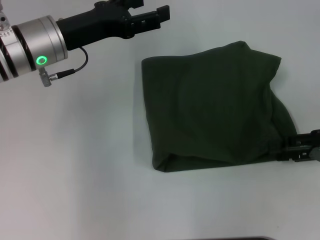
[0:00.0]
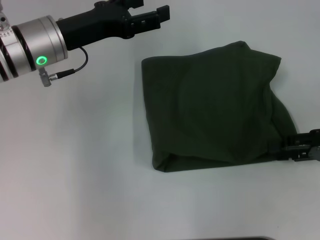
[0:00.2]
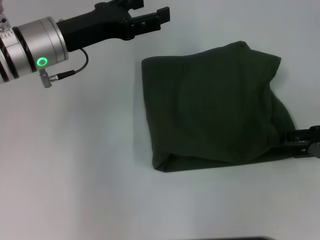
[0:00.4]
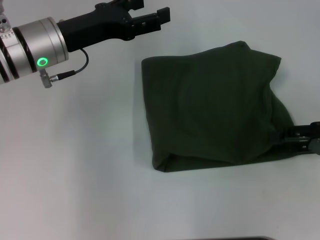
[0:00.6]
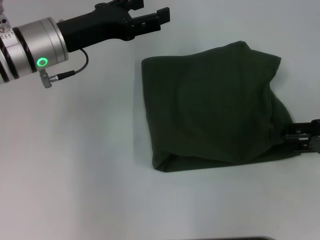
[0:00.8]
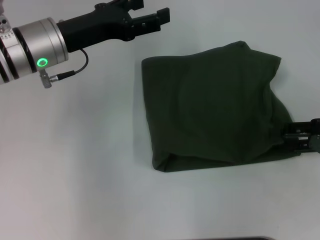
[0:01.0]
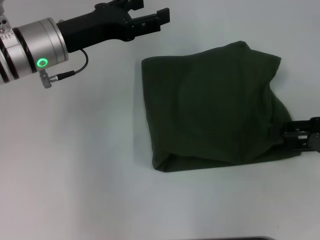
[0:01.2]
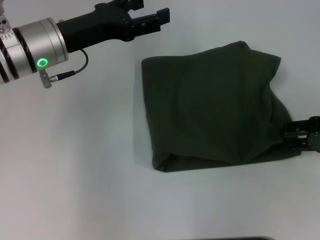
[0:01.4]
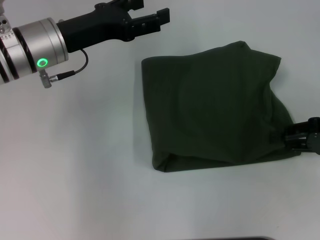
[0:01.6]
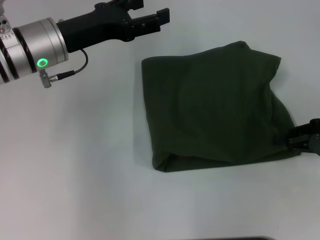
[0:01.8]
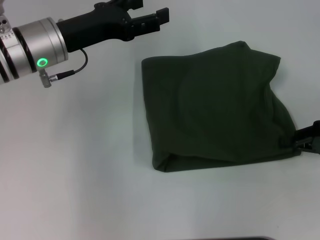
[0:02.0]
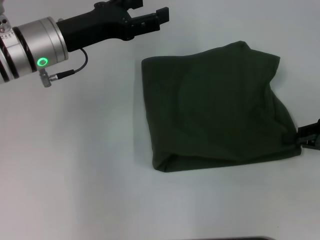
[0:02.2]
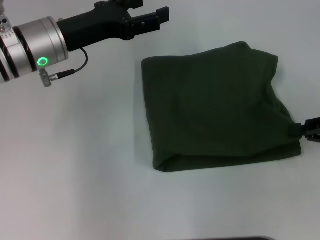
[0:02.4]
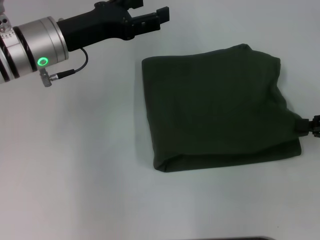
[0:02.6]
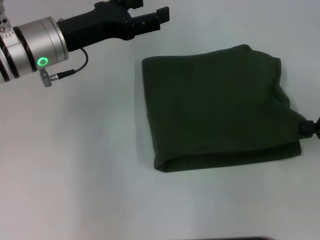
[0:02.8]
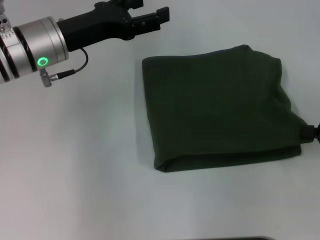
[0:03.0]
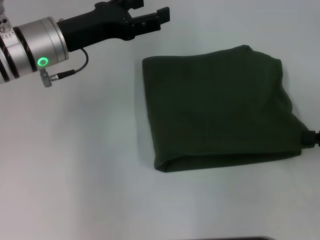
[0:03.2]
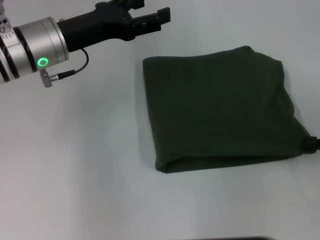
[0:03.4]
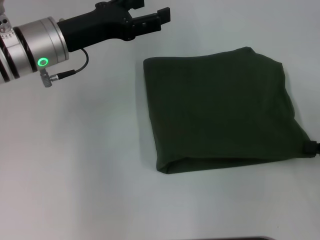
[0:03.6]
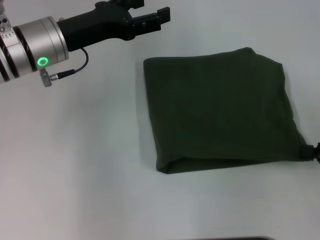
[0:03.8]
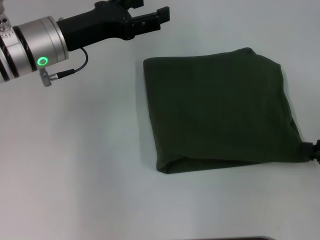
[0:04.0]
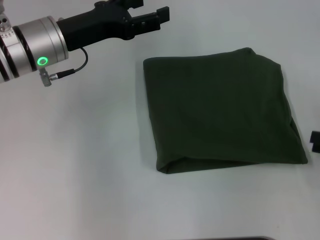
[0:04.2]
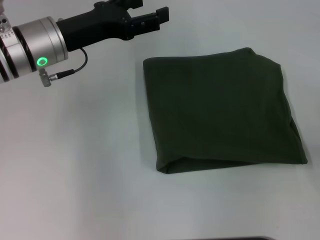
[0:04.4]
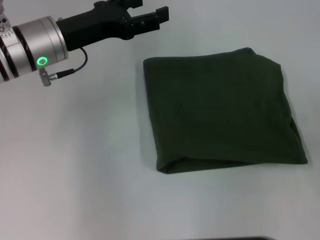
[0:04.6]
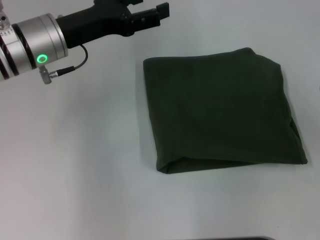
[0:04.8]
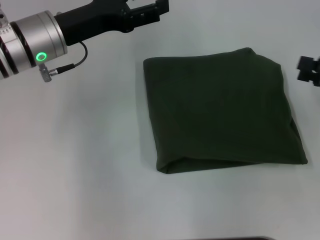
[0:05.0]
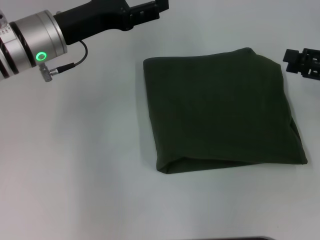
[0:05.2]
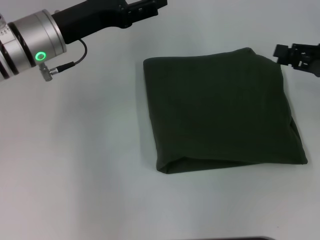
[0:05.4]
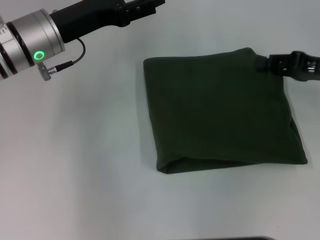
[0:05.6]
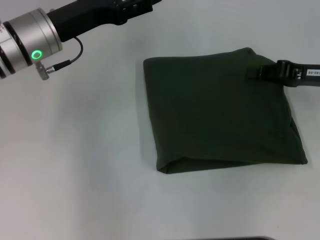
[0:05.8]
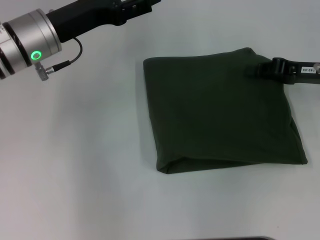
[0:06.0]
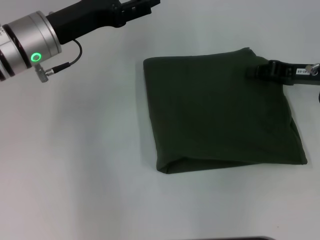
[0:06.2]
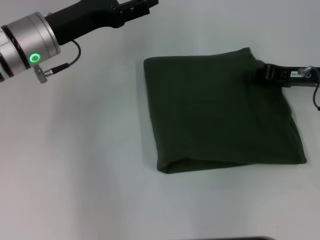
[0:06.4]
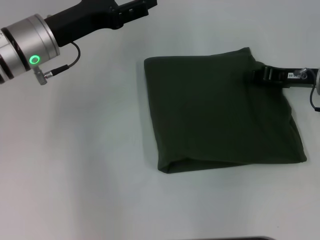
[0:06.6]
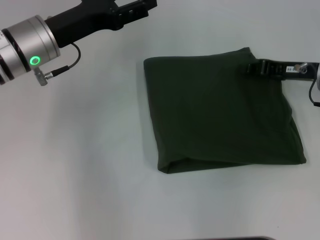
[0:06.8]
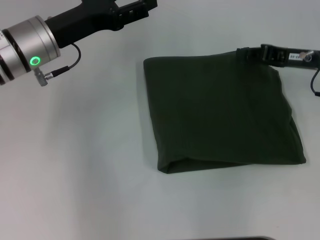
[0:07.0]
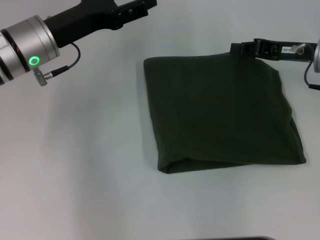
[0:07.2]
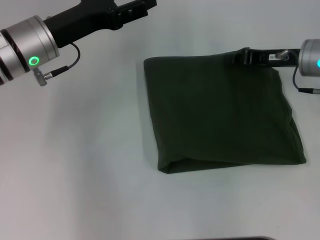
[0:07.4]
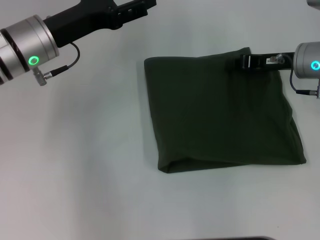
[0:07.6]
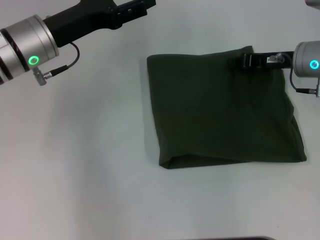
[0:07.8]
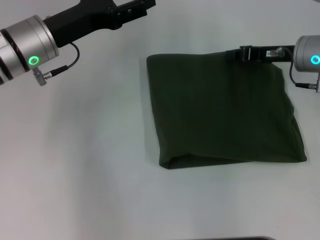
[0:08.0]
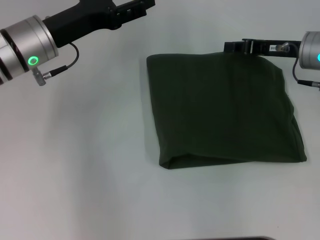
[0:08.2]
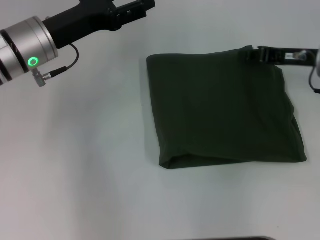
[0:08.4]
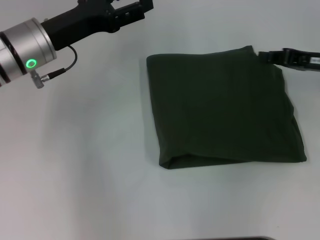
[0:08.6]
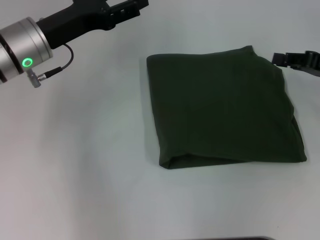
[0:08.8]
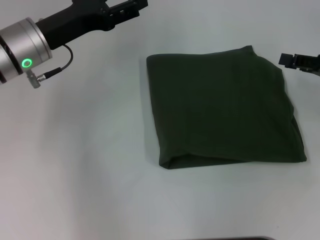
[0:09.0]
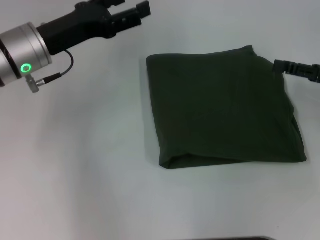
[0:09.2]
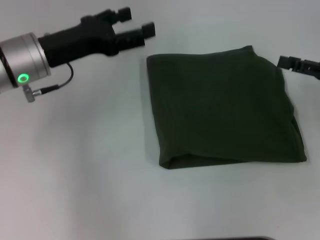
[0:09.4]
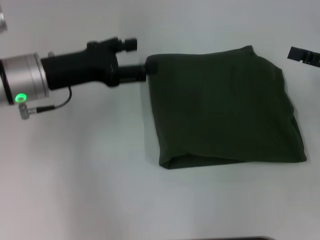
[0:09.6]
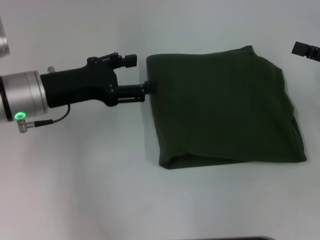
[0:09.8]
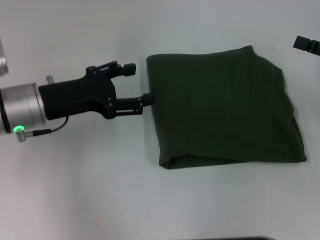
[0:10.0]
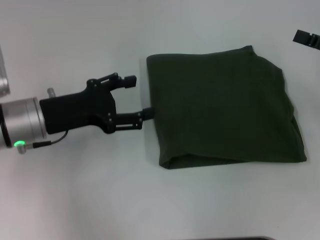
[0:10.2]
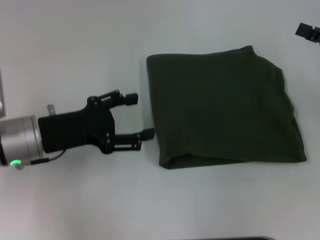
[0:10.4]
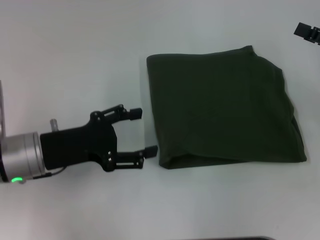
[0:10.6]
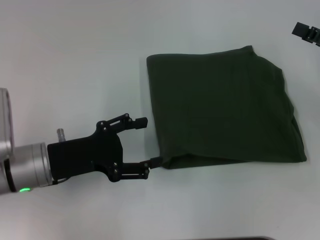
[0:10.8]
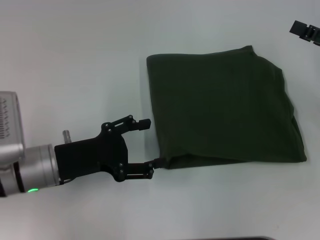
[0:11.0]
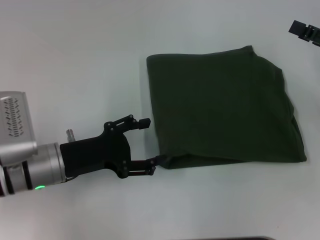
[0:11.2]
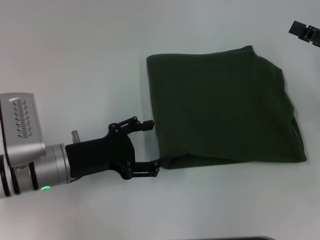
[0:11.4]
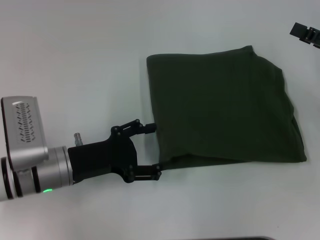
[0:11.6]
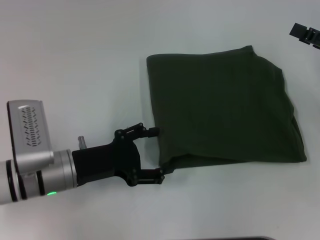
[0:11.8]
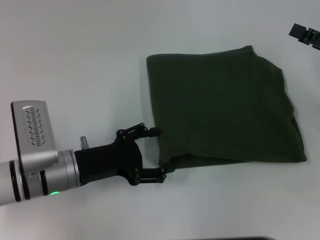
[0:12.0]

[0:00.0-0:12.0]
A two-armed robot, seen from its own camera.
0:00.0 to 0:01.6: The grippers make only small movements.
0:01.6 to 0:03.0: The right gripper closes its fingers.
0:03.0 to 0:04.4: The right gripper opens.
0:04.4 to 0:06.0: The right gripper moves forward and to the left, about 20 cm, and closes its fingers.
0:06.0 to 0:07.6: The right gripper ends up approximately 5 cm from where it was.
0:07.6 to 0:09.0: The right gripper is displaced to the right and backward by about 10 cm.
0:09.0 to 0:10.4: The right gripper opens up, while the left gripper is displaced backward and downward by some 10 cm.
0:10.4 to 0:12.0: The left gripper shifts roughly 5 cm downward.

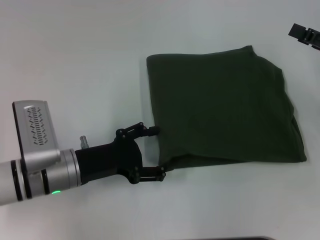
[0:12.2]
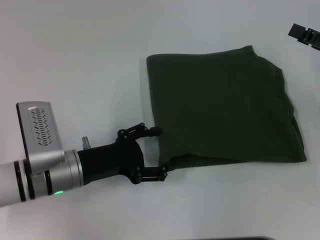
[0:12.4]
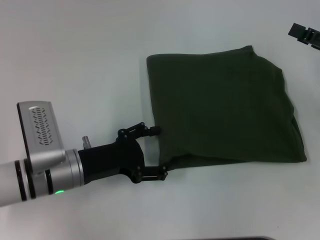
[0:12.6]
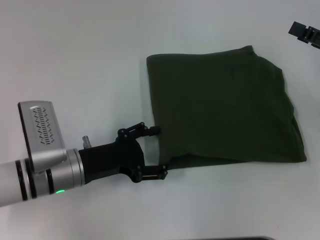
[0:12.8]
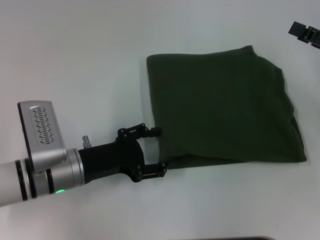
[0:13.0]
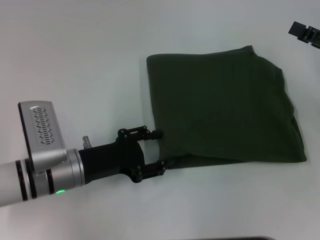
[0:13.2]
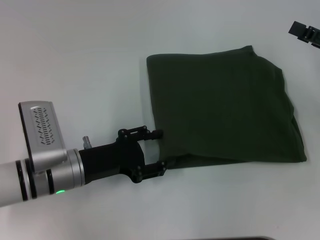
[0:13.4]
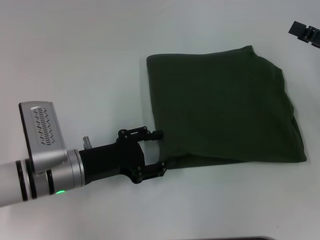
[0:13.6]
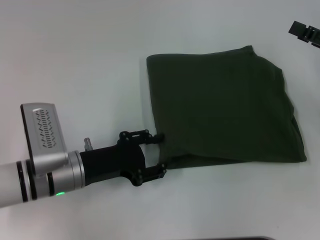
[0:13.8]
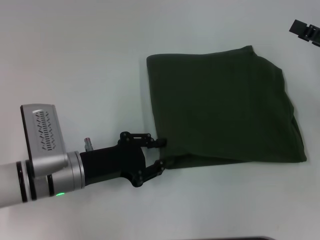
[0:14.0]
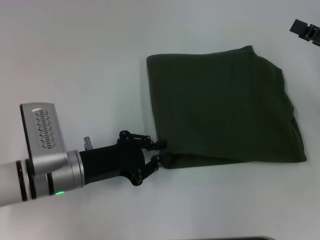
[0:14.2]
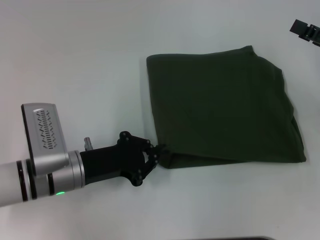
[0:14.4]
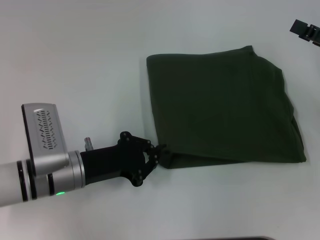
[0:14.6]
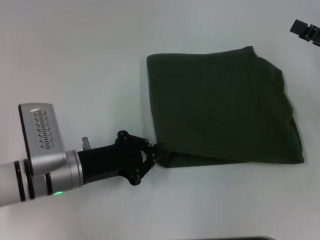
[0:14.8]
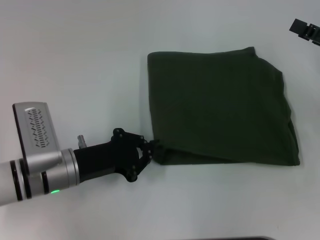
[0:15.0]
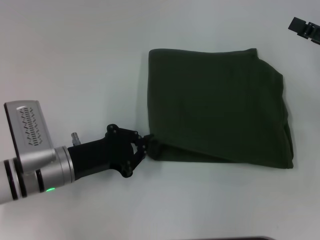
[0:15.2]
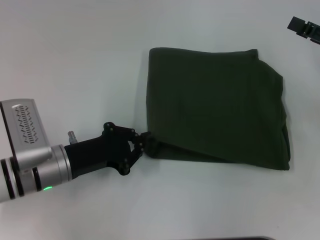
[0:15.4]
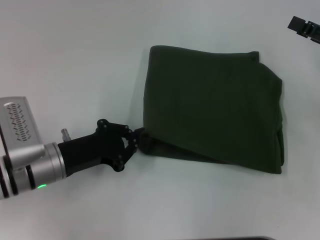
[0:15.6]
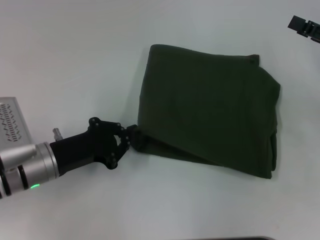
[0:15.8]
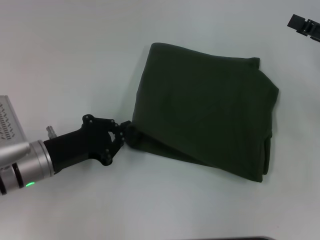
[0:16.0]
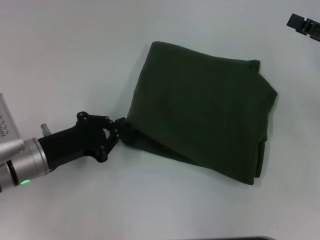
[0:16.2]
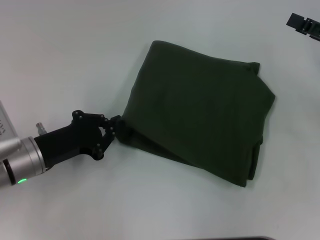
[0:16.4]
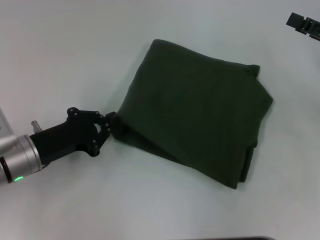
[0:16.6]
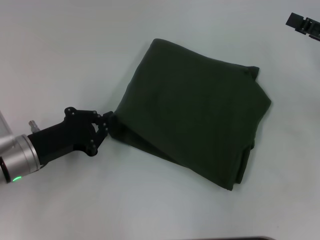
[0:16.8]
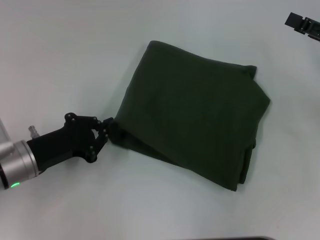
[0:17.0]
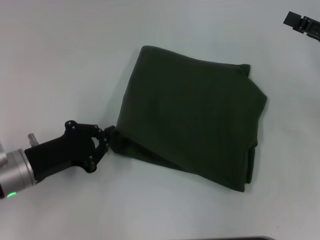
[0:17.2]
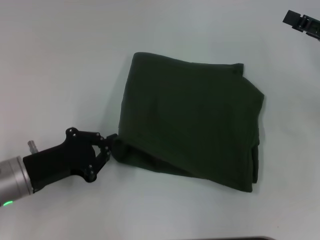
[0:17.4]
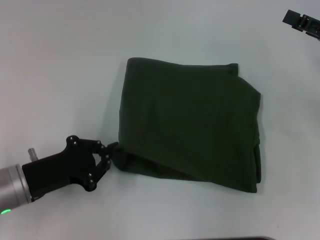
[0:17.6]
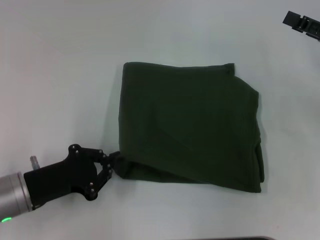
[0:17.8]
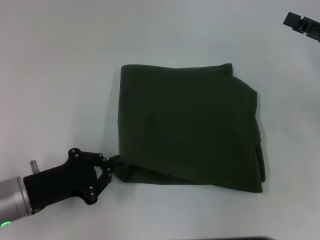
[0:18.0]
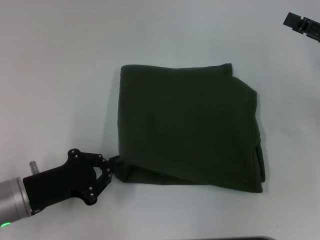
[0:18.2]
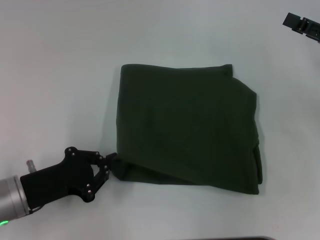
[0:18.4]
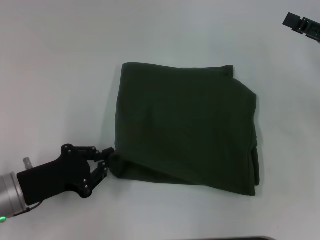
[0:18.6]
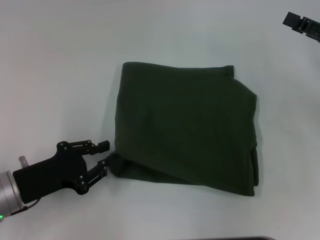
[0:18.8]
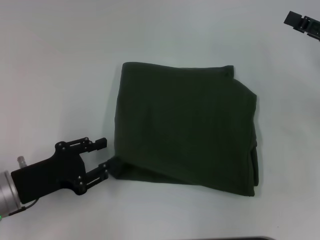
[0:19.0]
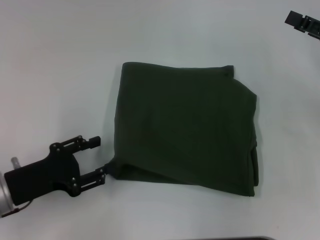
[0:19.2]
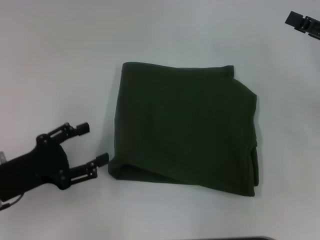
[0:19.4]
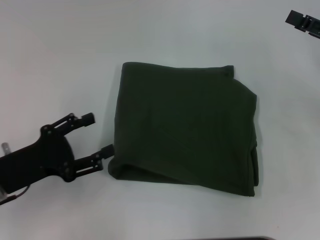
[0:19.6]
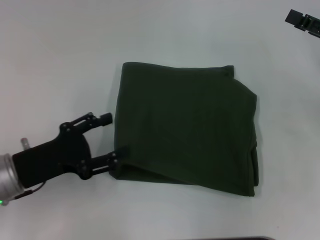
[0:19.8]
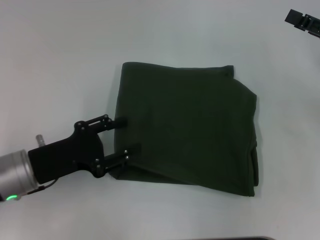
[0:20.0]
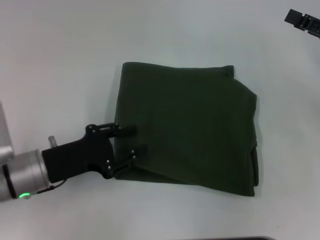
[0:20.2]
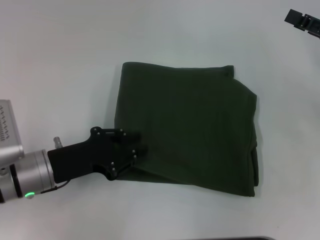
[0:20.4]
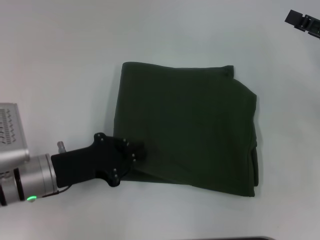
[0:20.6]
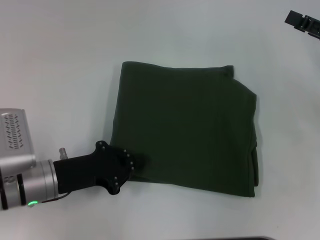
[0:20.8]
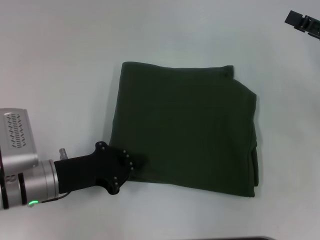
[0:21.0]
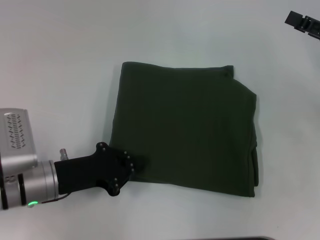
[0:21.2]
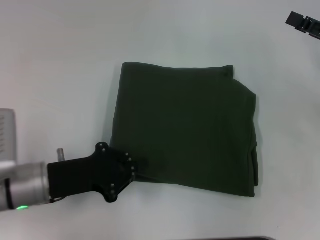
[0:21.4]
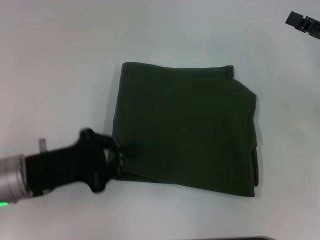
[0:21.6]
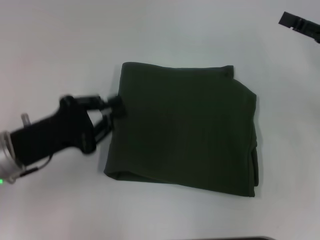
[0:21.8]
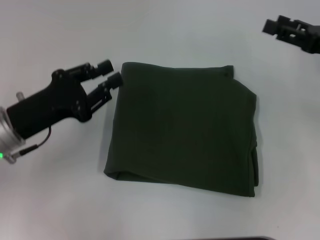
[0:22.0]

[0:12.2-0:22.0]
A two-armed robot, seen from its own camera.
0:12.2 to 0:13.6: The two grippers keep their place.
0:13.6 to 0:15.0: The left gripper closes up.
0:17.8 to 0:19.2: The left gripper opens its fingers.
0:19.2 to 0:20.6: The left gripper shifts about 5 cm to the right, and opens and closes again.
0:20.6 to 0:22.0: The left gripper goes approximately 5 cm upward.

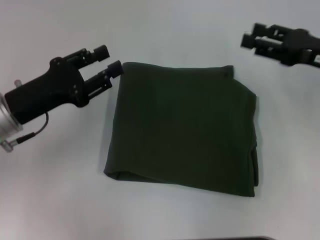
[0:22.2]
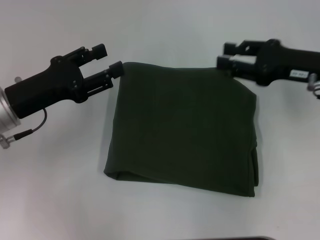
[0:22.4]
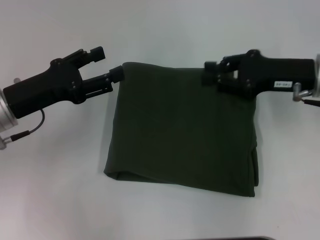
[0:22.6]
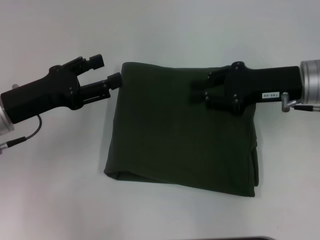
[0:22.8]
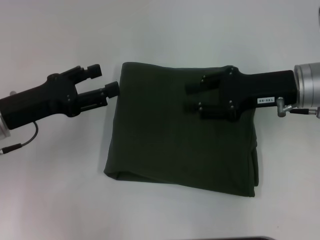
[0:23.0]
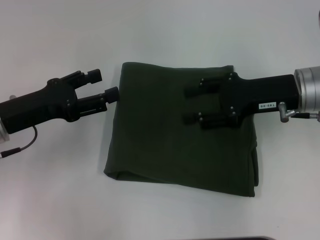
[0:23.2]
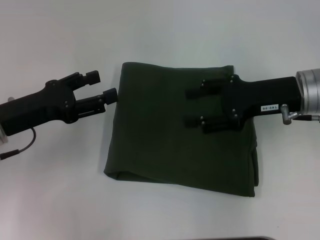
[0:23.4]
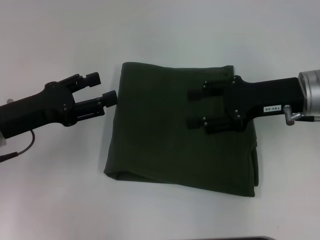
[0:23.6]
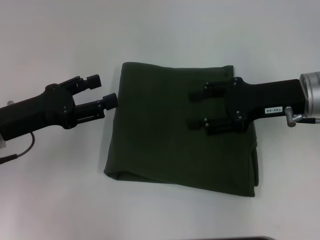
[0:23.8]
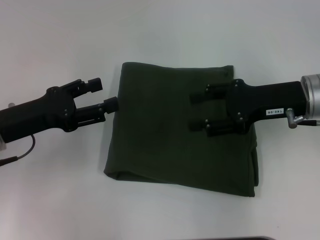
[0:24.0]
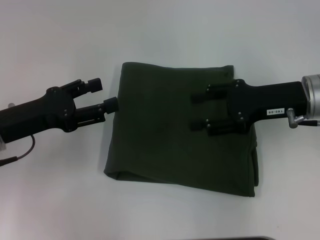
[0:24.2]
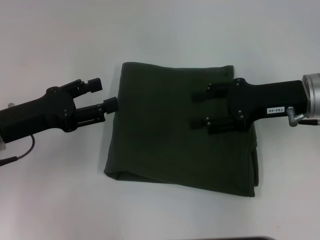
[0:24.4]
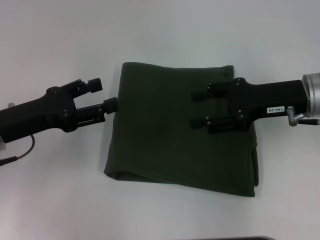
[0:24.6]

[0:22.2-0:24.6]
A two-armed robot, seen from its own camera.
0:22.2 to 0:23.4: The right gripper travels to the left by approximately 5 cm, and closes, then opens again. Meanwhile the left gripper opens up.
0:23.4 to 0:24.6: The two grippers keep their place.
